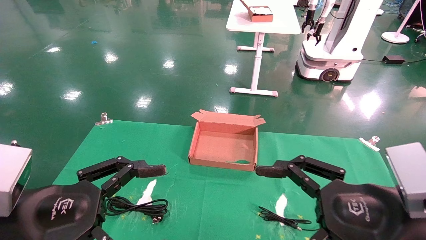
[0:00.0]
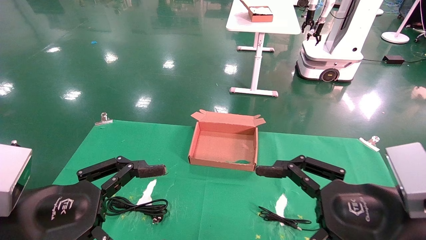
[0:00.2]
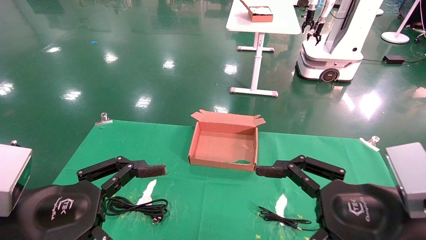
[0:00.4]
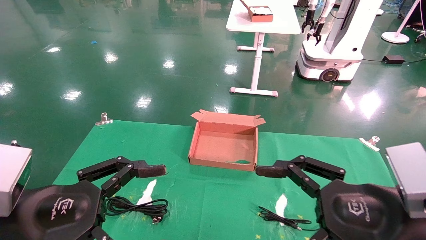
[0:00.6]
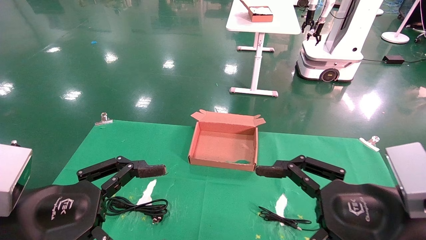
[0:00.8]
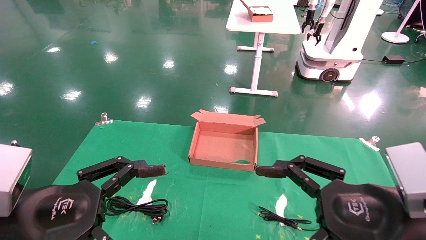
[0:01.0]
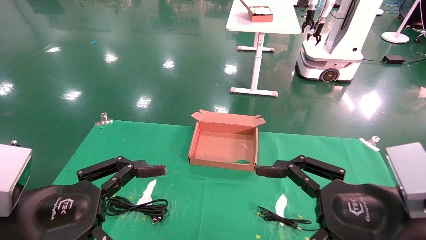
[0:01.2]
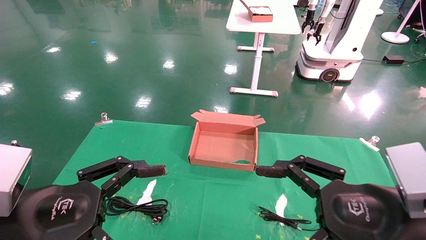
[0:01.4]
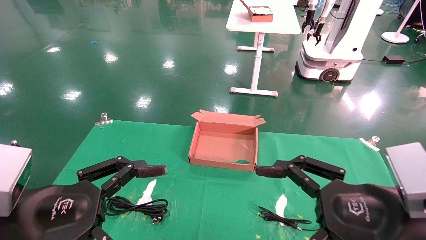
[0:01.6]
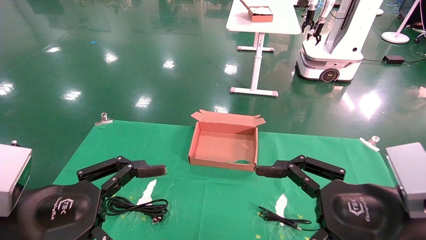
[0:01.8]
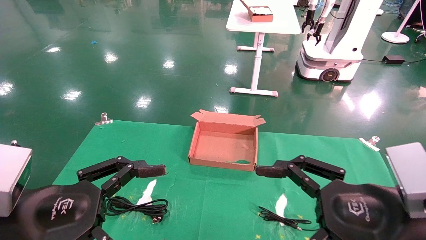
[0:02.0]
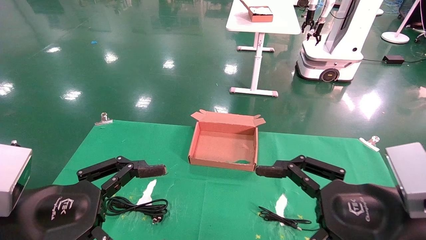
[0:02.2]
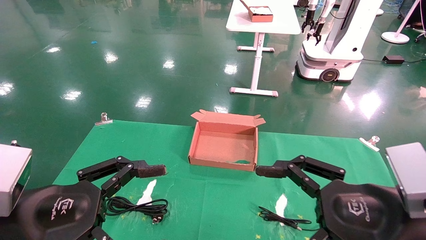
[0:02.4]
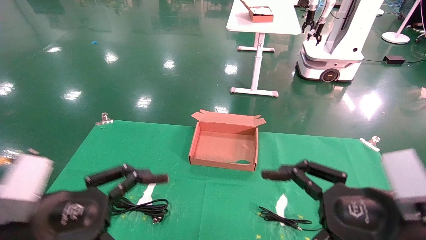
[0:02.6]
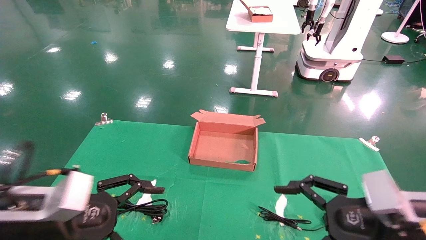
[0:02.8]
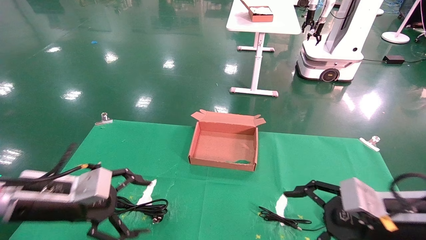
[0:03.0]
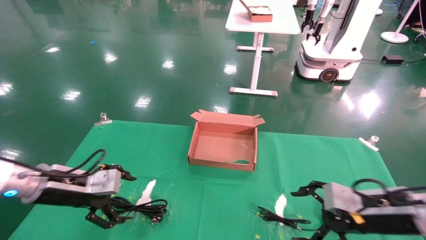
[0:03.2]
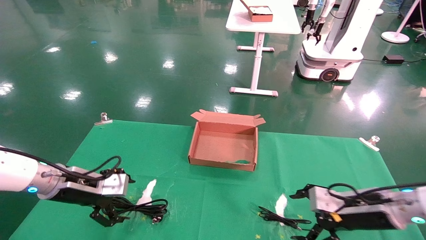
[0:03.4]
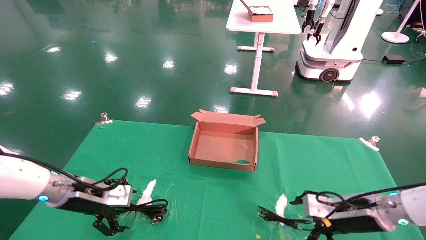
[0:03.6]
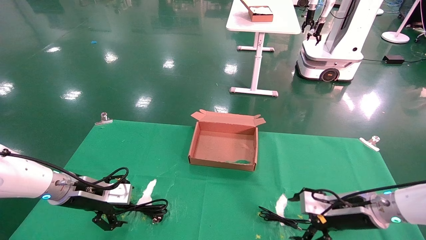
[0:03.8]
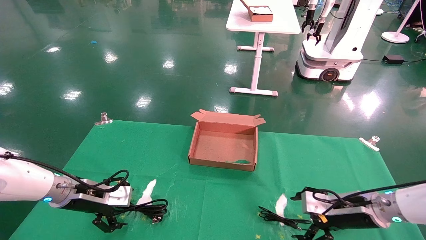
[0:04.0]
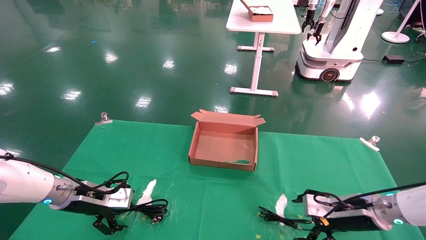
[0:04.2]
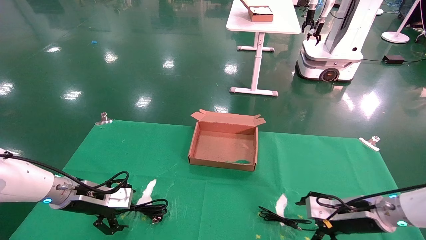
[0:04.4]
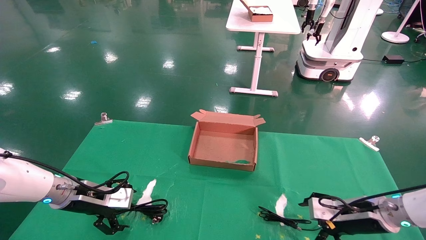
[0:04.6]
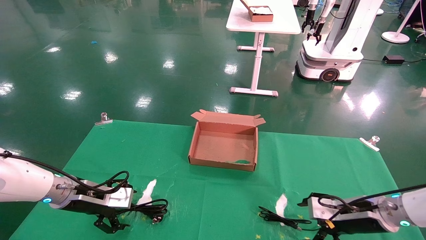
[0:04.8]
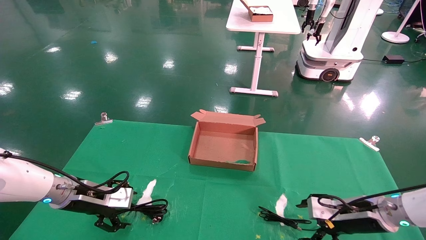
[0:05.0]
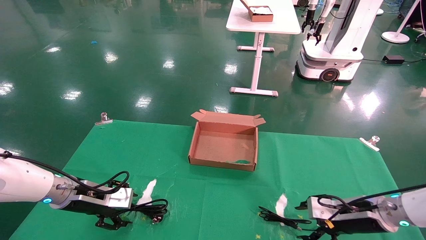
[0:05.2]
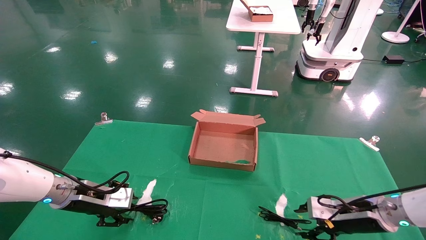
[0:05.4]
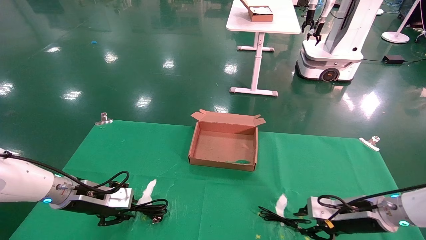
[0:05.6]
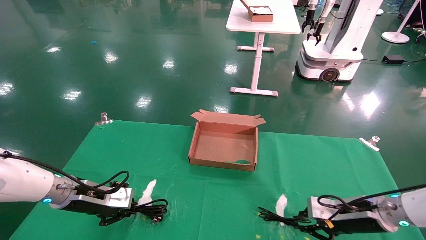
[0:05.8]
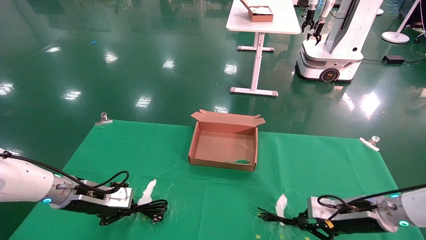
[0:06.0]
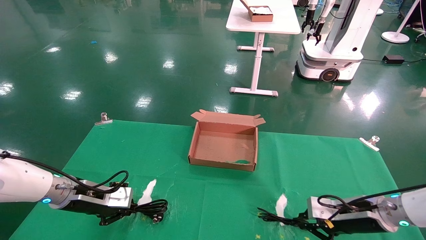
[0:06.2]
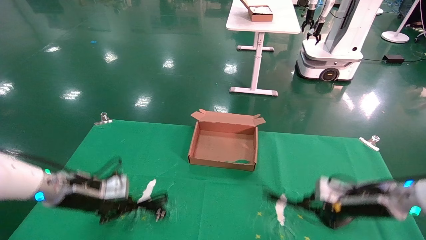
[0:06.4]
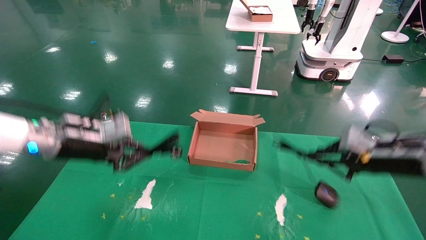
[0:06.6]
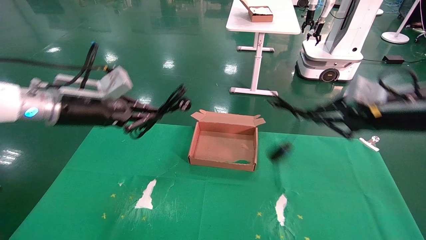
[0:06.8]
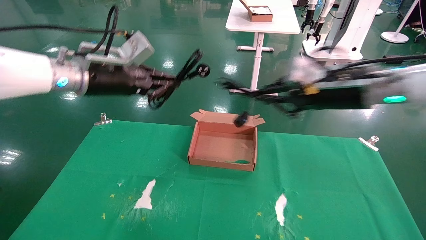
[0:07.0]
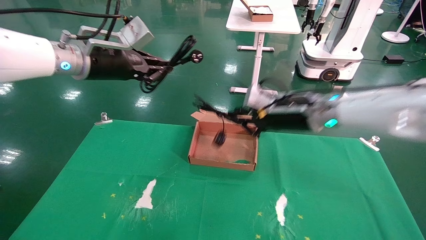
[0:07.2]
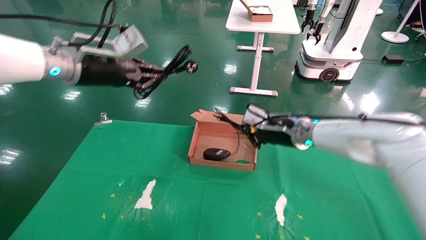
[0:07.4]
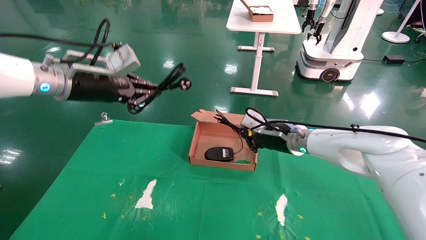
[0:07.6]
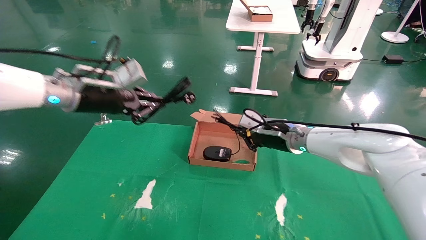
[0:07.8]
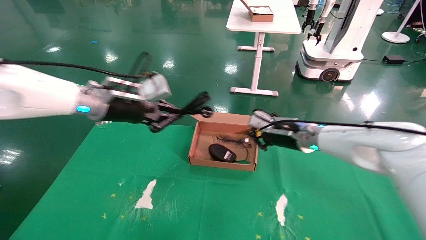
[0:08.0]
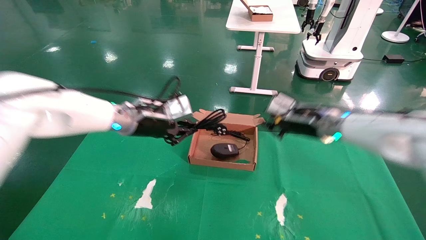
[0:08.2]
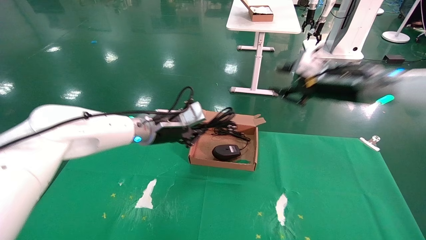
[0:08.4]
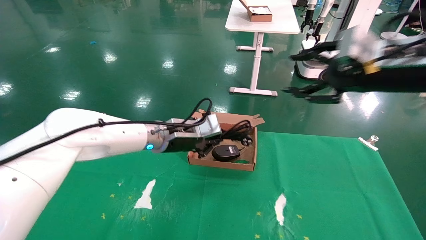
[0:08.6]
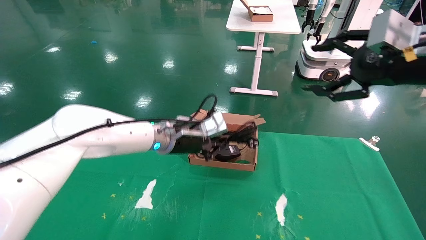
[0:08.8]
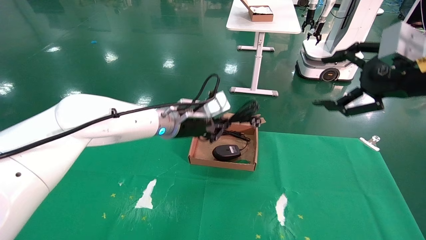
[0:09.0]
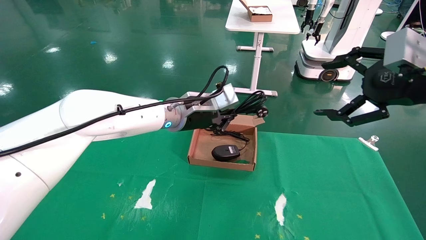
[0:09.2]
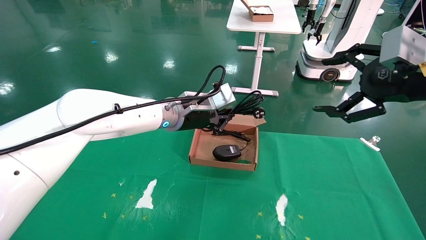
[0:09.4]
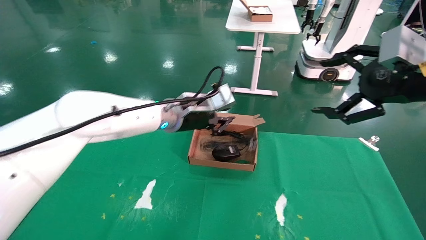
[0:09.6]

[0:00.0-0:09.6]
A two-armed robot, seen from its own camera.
Step, 0:02.8 to 0:06.0: Grab and lift both the mouse and power cord from the accessory packaging area at the same time.
0:00.0 to 0:01.6: Neither gripper changes place.
0:01.6 to 0:03.2: The right gripper shifts about 15 cm forward, downward and to the right; the left gripper goes roughly 15 cm forward.
0:03.2 to 0:04.8: The grippers both shift forward and downward by approximately 10 cm.
0:04.8 to 0:06.4: Both grippers move upward, about 5 cm. The left gripper closes its fingers. Meanwhile the right gripper closes.
0:06.4 to 0:08.0: The right gripper shifts some 20 cm to the left, forward and upward. Meanwhile the left gripper is displaced upward and to the right by approximately 15 cm.
0:08.0 to 0:09.6: The left gripper heads to the right, covering some 15 cm. The right gripper goes roughly 25 cm backward, to the right and upward, and opens up.

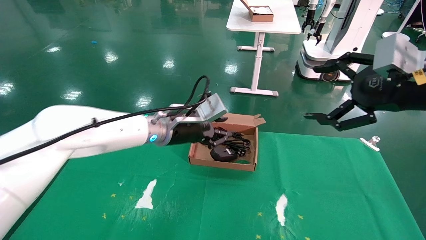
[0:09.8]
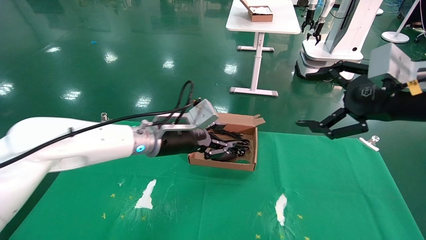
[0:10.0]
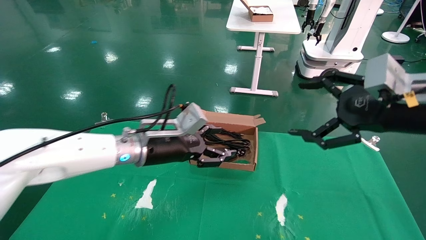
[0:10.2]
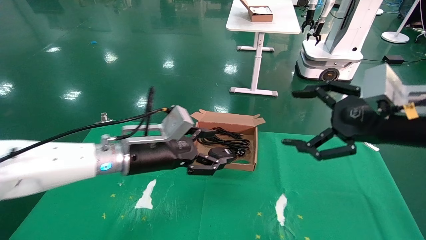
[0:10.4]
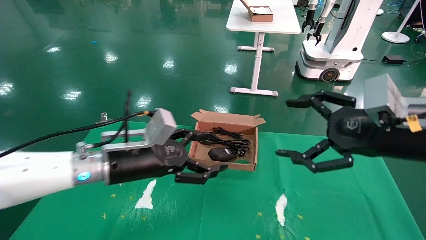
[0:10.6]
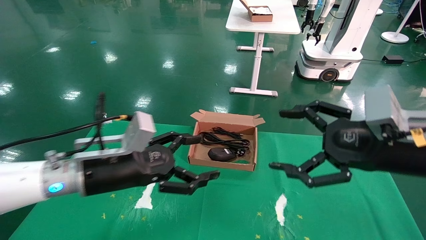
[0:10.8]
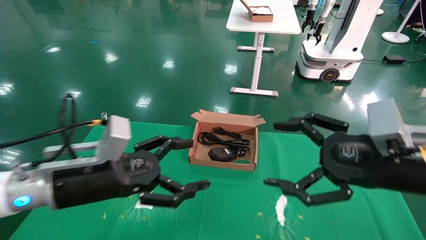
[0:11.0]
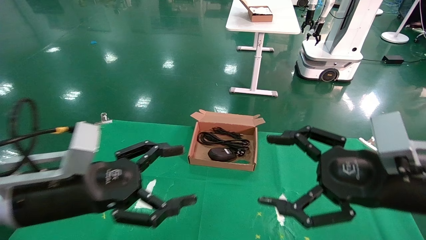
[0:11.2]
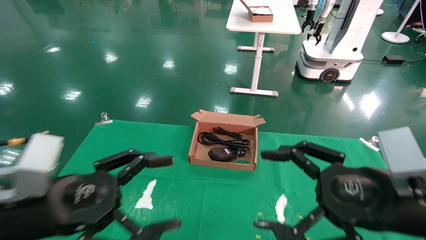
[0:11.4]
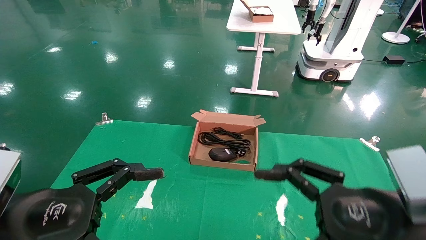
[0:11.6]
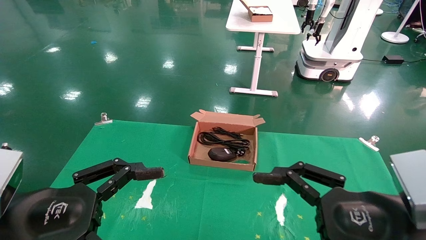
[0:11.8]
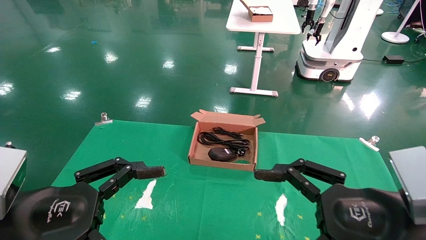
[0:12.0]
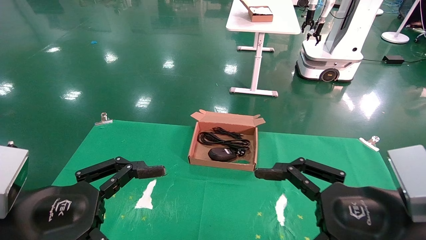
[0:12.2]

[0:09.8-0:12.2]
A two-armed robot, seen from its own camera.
0:09.8 to 0:11.0: The left gripper moves backward and to the left, approximately 20 cm, and opens; the right gripper goes about 10 cm downward and to the left.
0:11.0 to 0:12.2: The right gripper travels backward by some 5 cm; the left gripper travels backward by approximately 10 cm.

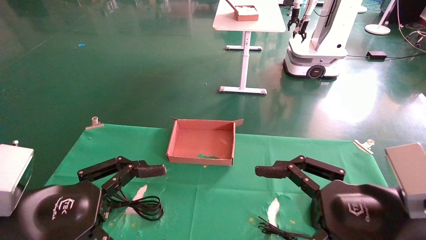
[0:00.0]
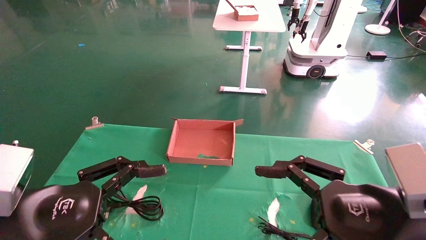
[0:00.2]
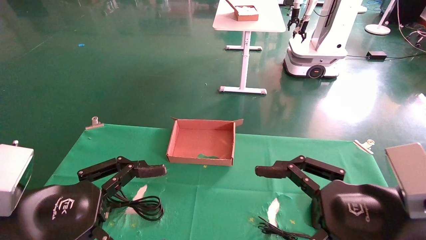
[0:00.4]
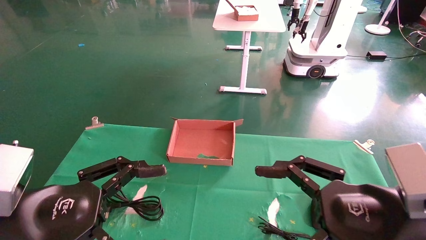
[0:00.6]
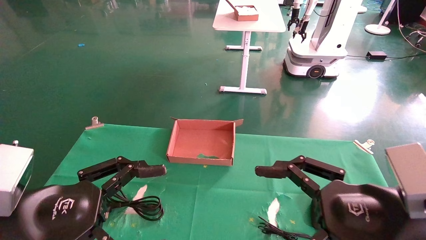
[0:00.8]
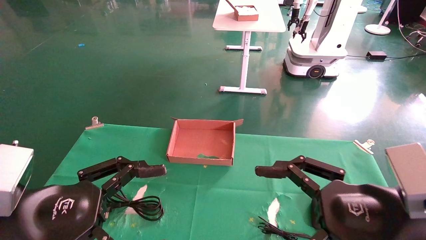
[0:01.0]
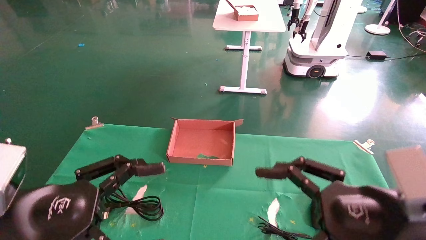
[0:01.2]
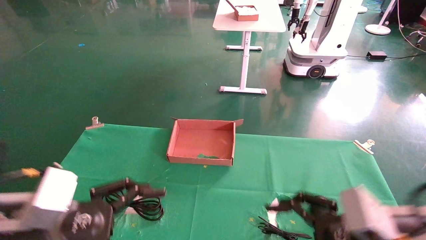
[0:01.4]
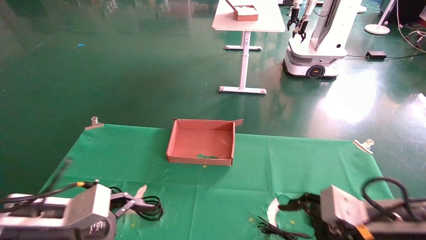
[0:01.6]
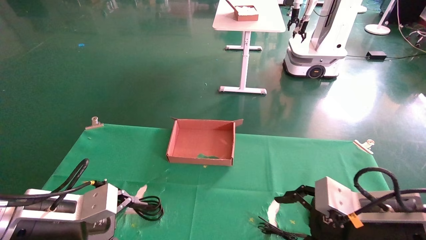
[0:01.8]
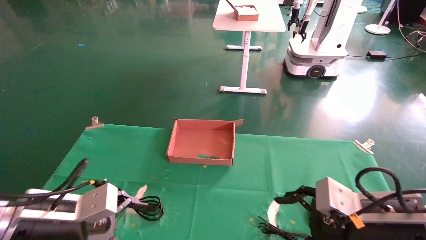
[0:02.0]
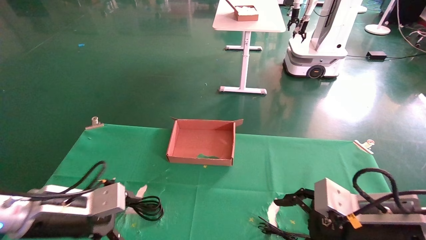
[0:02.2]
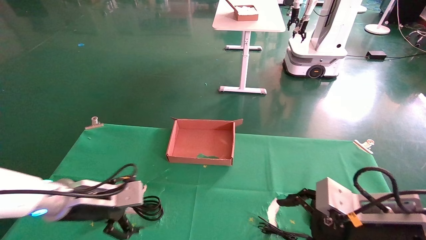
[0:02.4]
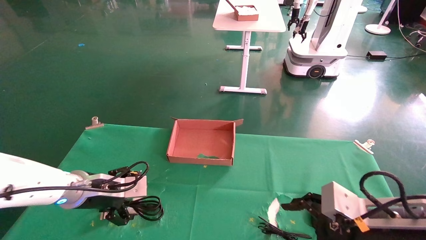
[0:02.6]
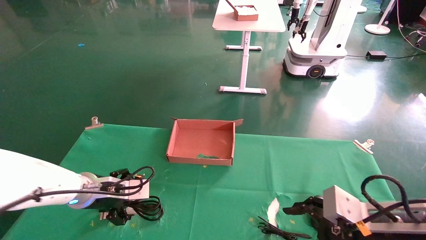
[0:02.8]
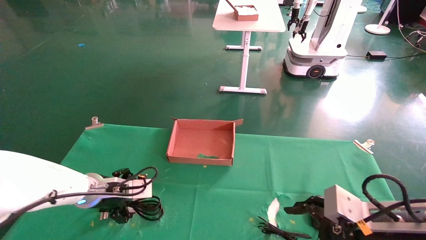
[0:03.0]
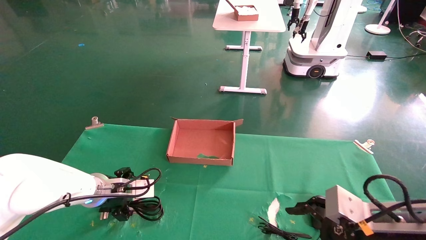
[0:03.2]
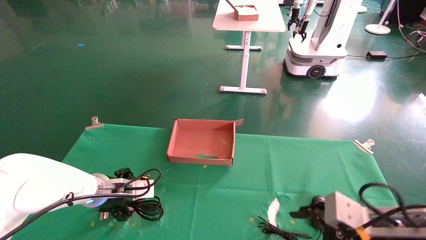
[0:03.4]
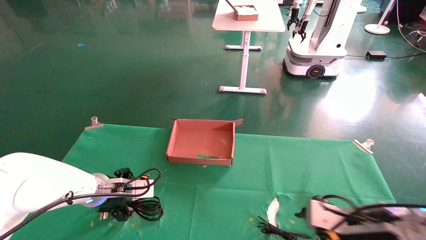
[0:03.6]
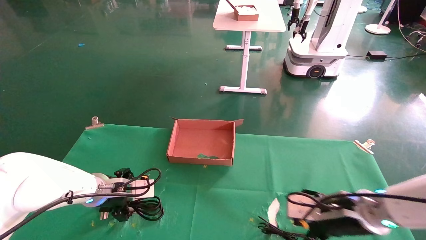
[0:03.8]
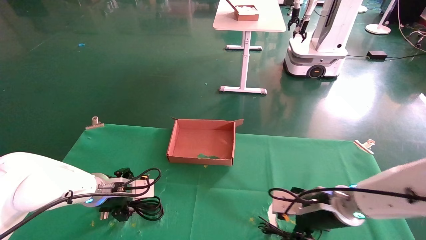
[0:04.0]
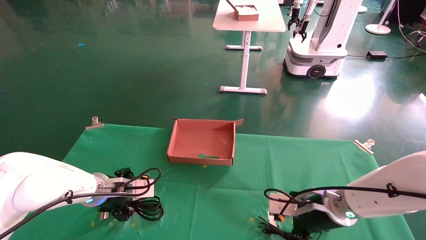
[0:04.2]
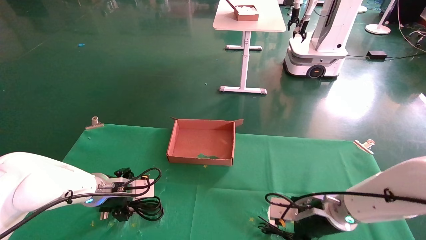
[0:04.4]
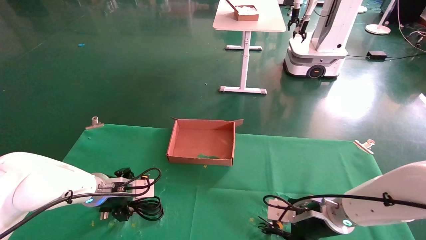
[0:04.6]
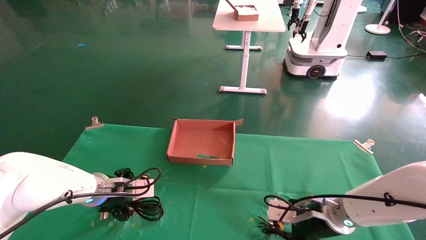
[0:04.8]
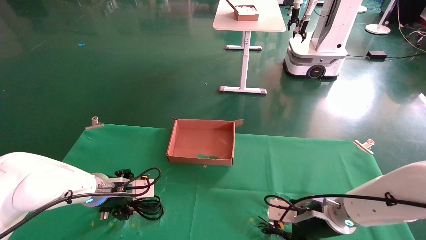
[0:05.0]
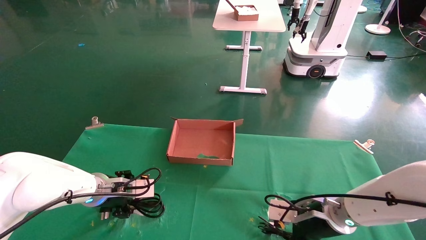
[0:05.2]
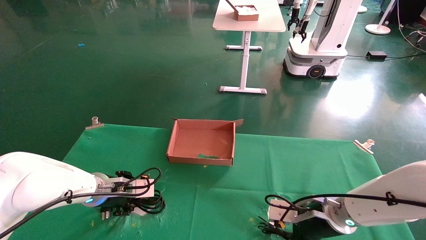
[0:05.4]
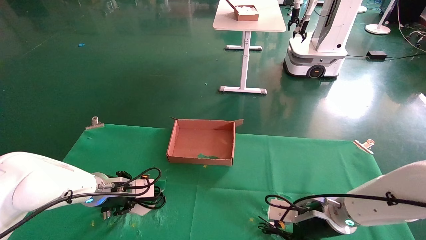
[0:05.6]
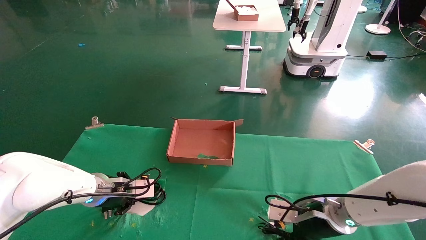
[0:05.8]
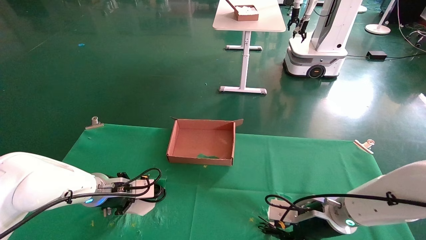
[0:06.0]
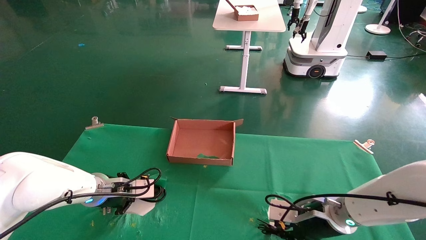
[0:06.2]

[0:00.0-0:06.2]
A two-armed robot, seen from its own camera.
0:00.0 to 0:01.6: The left gripper shifts some 5 cm forward, while the right gripper goes roughly 5 cm downward.
0:01.6 to 0:03.2: The left gripper goes about 15 cm forward.
0:03.2 to 0:04.6: The right gripper moves forward, to the left and downward, some 15 cm.
0:04.6 to 0:06.2: The right gripper closes its fingers; the left gripper closes up.
